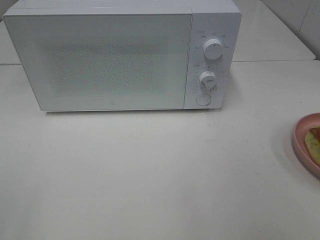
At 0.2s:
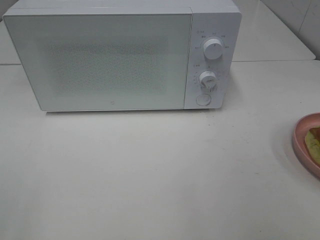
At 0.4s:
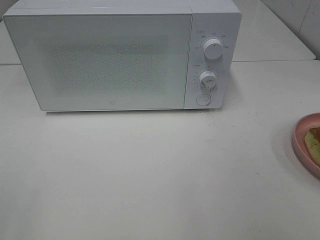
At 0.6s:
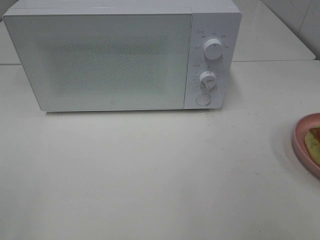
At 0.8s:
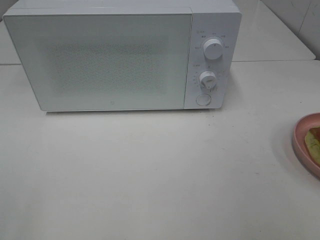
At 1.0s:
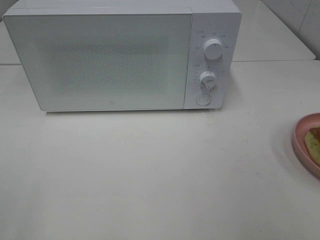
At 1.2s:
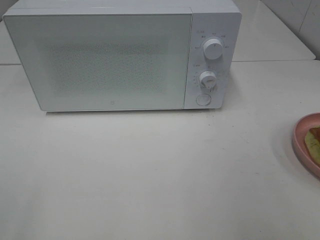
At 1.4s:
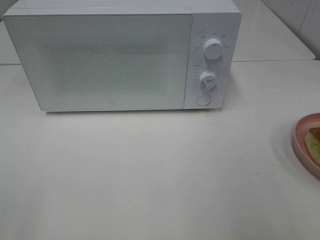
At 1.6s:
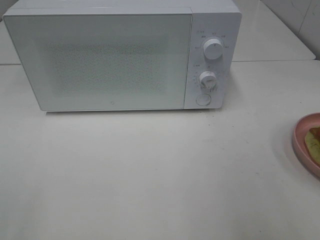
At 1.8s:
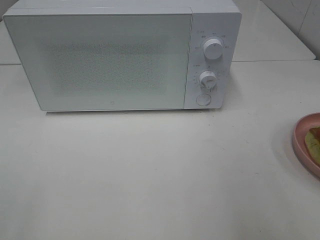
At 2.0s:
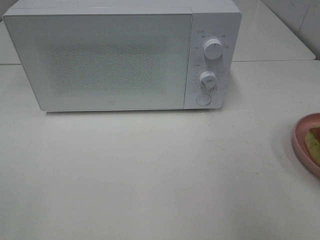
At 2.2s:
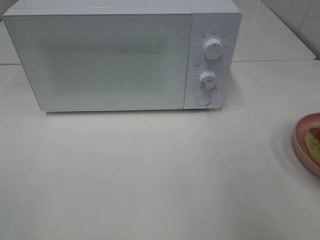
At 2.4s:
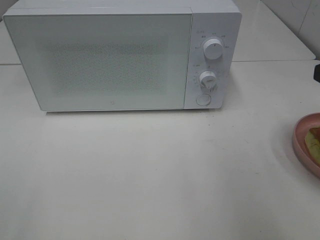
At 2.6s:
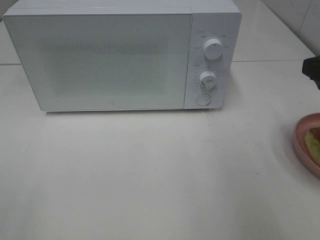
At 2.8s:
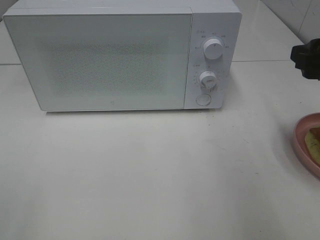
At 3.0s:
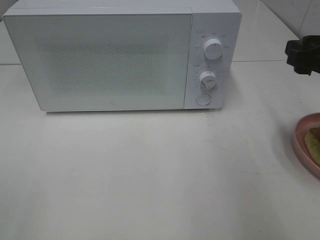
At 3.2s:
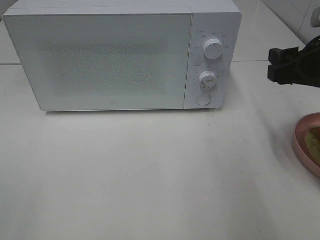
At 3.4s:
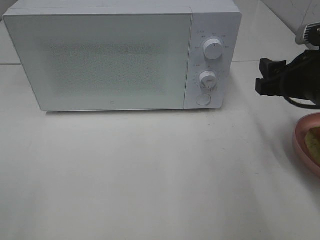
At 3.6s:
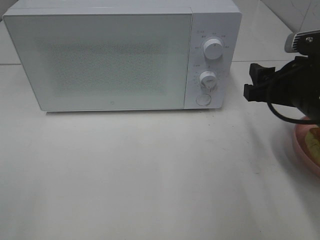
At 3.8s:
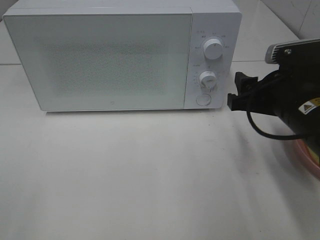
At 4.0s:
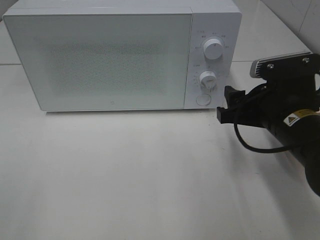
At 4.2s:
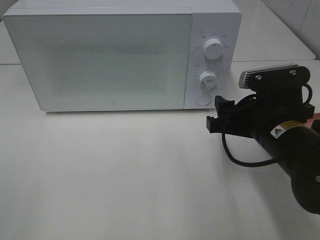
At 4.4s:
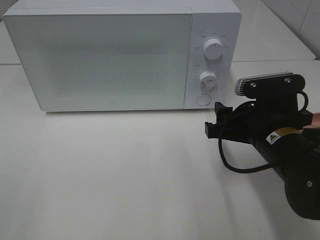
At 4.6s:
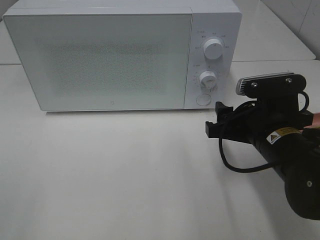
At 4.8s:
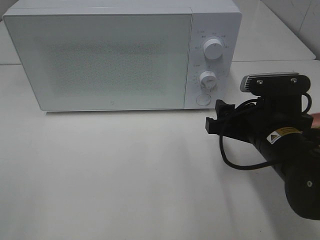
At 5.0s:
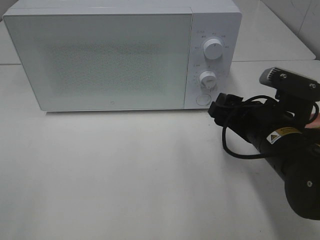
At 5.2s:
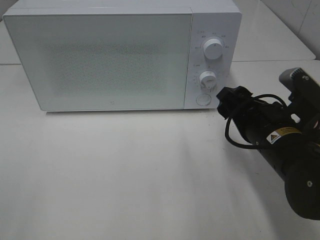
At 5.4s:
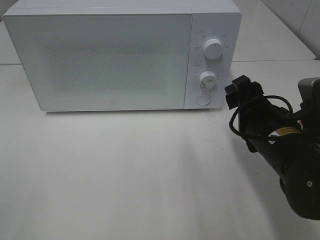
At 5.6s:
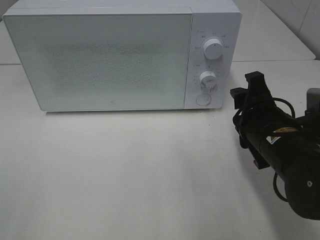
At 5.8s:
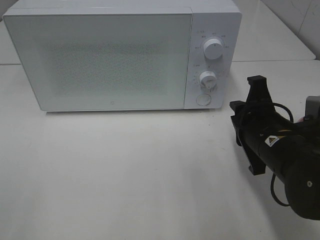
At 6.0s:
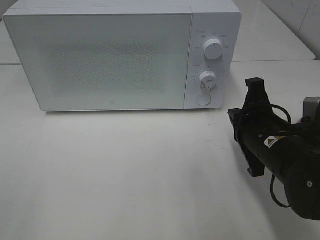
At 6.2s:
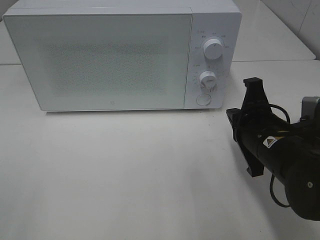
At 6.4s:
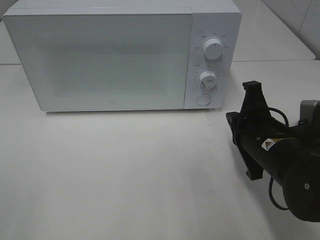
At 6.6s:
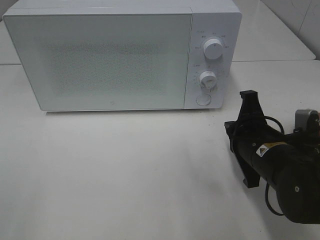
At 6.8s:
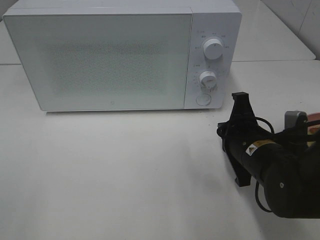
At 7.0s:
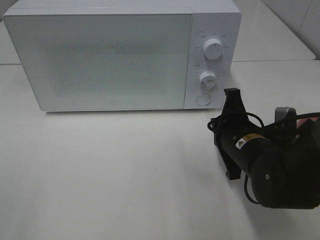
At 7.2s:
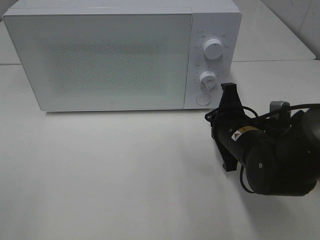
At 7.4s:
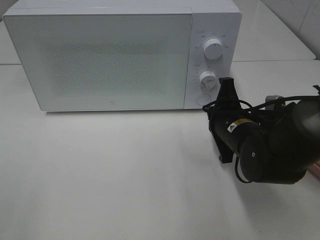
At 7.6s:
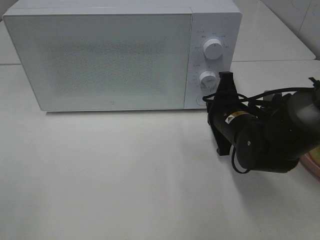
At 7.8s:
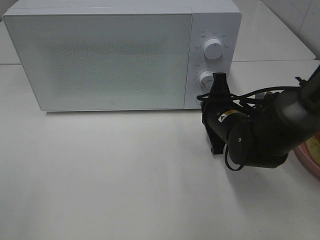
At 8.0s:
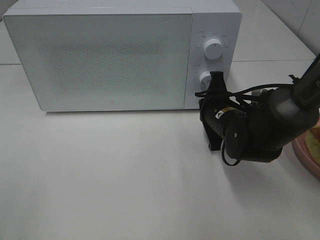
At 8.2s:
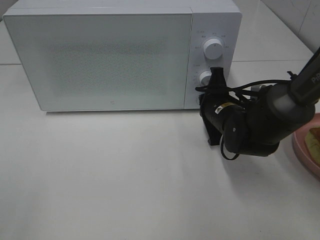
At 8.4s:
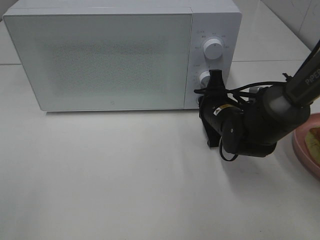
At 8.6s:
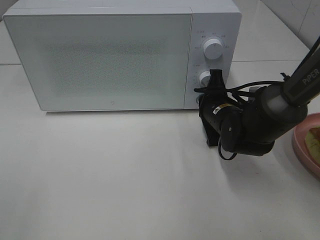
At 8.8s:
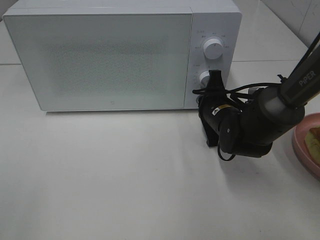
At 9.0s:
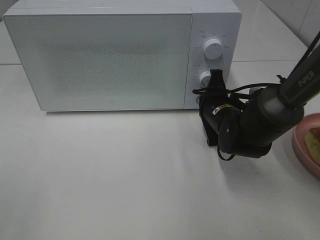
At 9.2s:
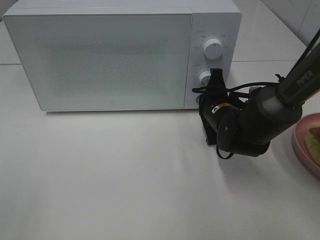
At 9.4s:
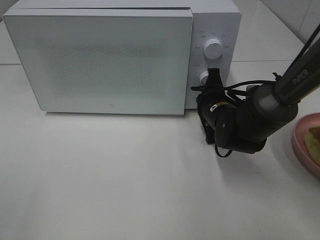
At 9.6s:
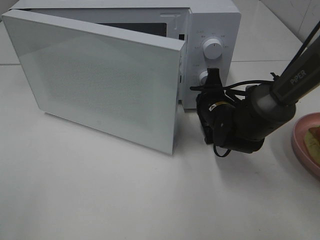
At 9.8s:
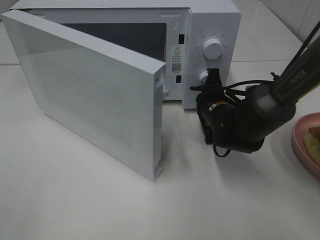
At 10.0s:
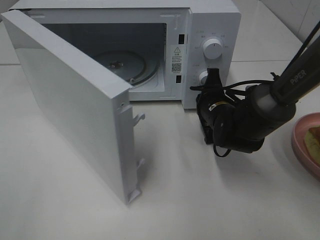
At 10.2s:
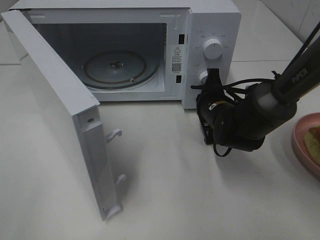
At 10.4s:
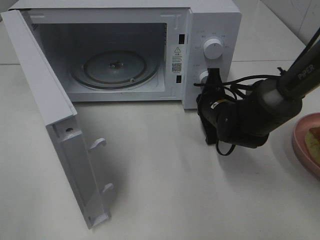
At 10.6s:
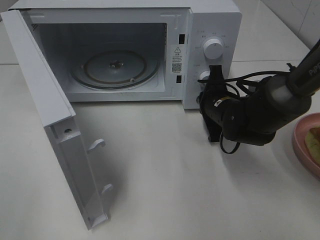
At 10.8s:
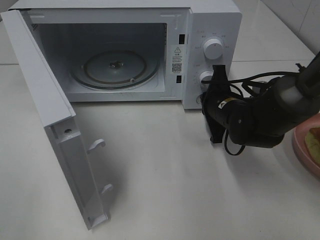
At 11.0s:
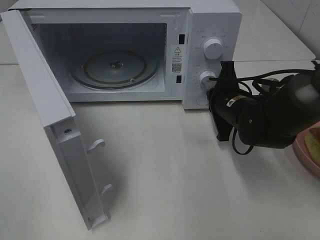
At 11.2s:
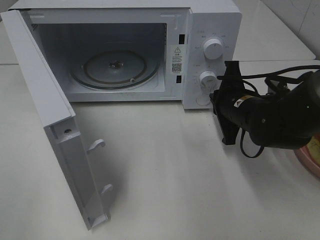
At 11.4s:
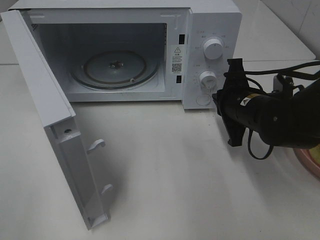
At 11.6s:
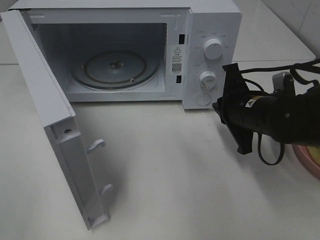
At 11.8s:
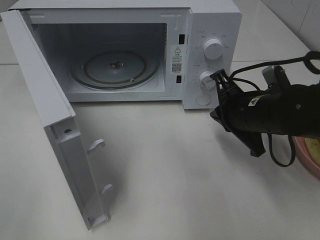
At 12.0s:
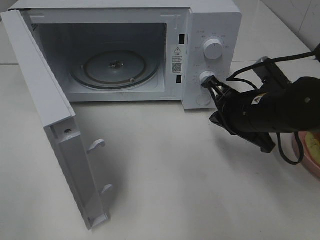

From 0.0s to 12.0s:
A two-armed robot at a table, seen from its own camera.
Task of the whole recording: Heat Sandwich.
Step, from 0.0s to 11.2s: Right hand: press the switch.
From 1.6s to 3.0s: The right gripper is displaced forward and downward by about 20 cm.
From 3.0s to 4.4s: The right gripper travels to the left and downward by about 15 cm.
From 4.4s to 6.0s: The right gripper closes.
From 6.0s to 7.6s: The right gripper heads forward, covering about 10 cm.
From 7.6s to 9.0s: The grippers make only small movements.
From 10.4s to 12.0s: The right gripper shifts about 10 cm backward and upward.

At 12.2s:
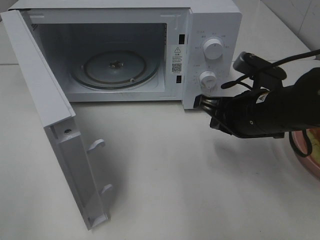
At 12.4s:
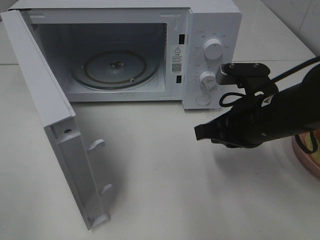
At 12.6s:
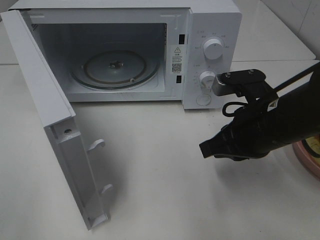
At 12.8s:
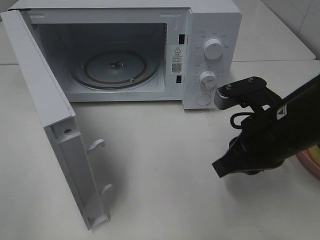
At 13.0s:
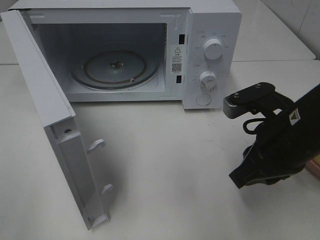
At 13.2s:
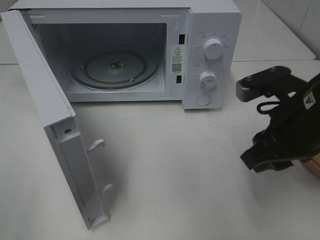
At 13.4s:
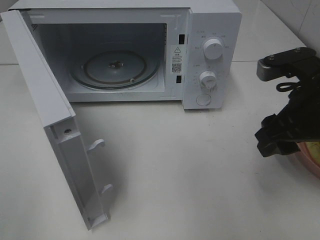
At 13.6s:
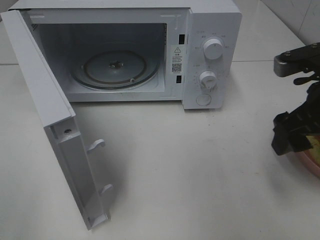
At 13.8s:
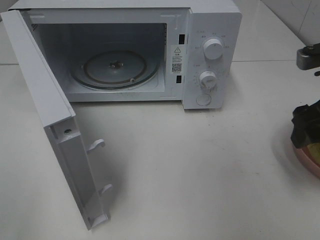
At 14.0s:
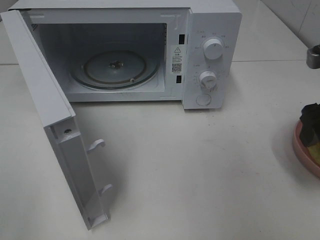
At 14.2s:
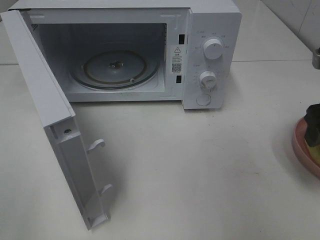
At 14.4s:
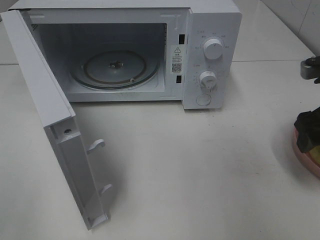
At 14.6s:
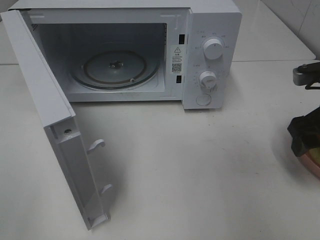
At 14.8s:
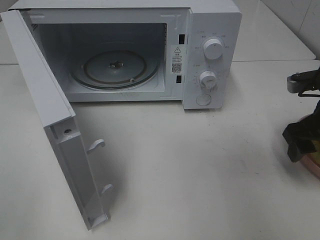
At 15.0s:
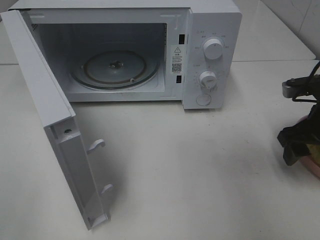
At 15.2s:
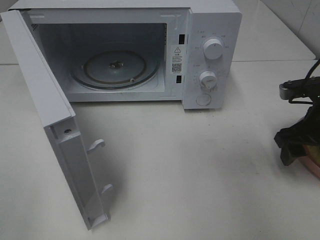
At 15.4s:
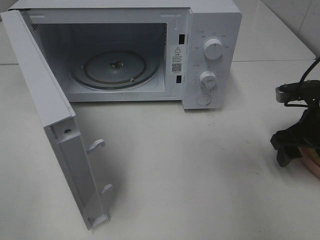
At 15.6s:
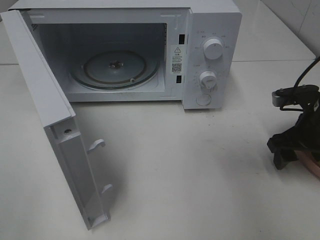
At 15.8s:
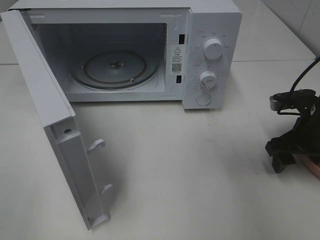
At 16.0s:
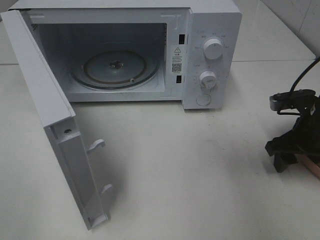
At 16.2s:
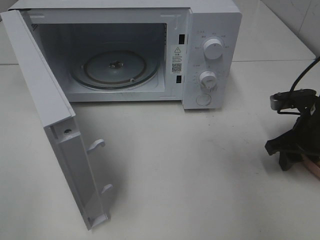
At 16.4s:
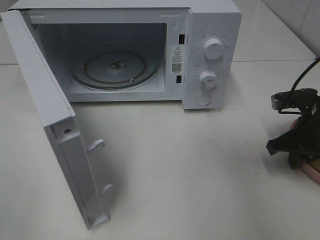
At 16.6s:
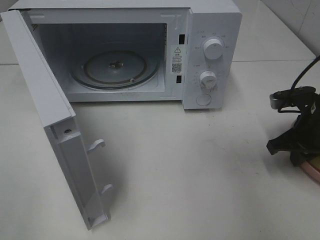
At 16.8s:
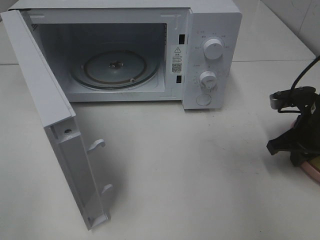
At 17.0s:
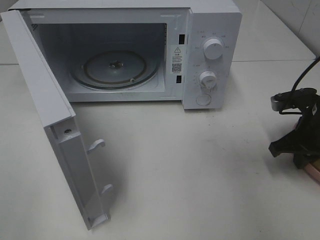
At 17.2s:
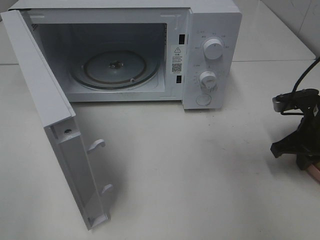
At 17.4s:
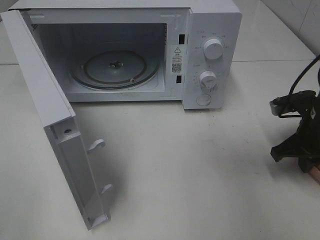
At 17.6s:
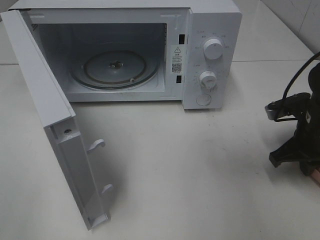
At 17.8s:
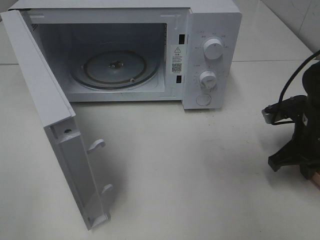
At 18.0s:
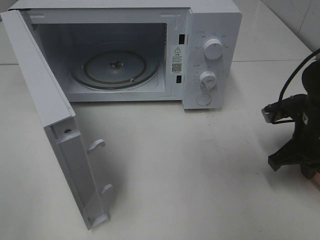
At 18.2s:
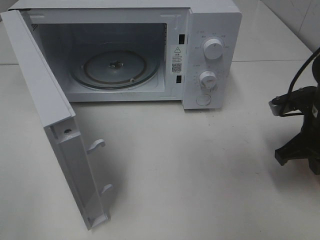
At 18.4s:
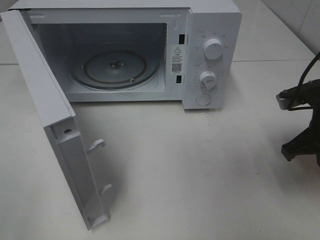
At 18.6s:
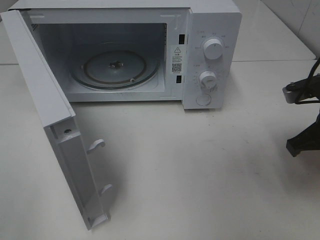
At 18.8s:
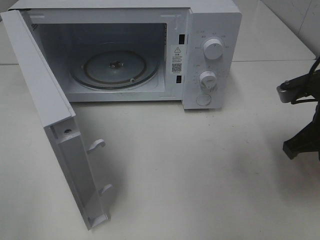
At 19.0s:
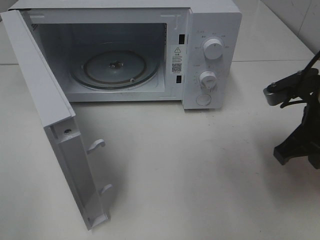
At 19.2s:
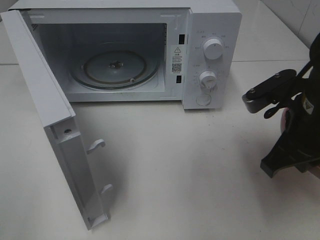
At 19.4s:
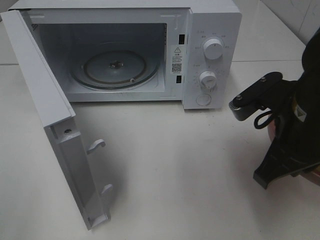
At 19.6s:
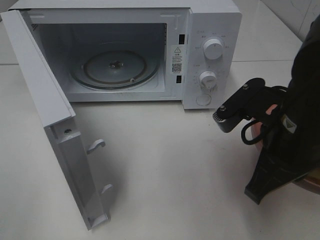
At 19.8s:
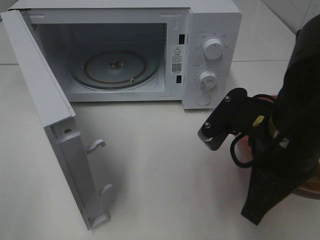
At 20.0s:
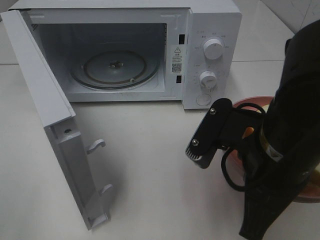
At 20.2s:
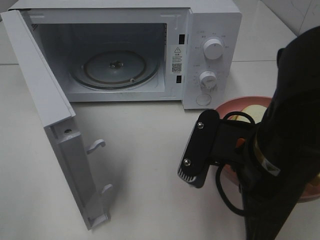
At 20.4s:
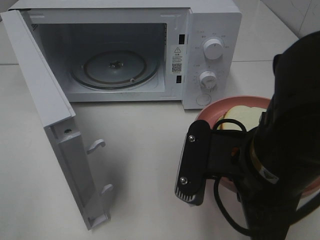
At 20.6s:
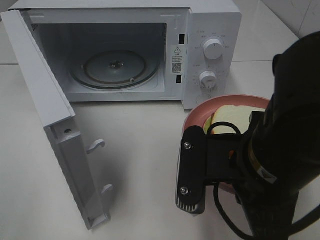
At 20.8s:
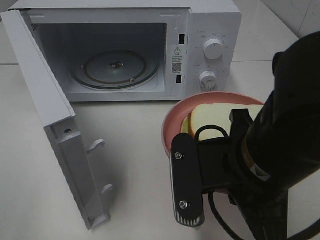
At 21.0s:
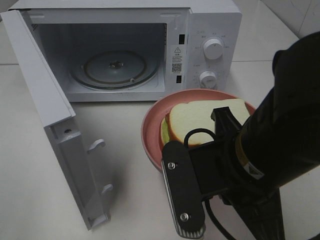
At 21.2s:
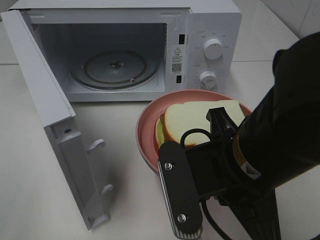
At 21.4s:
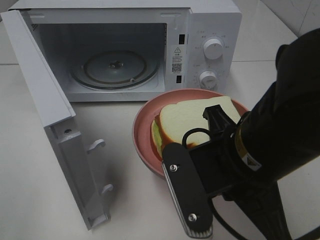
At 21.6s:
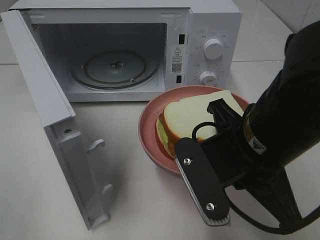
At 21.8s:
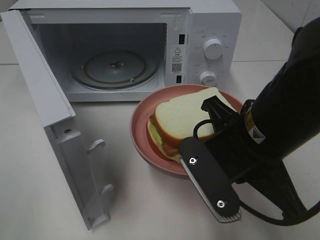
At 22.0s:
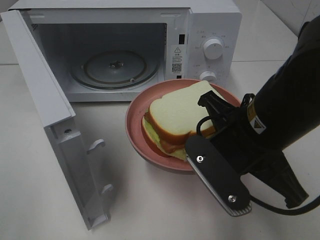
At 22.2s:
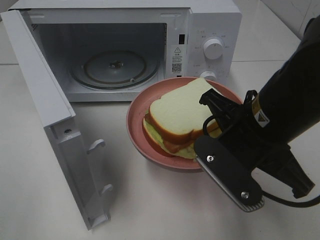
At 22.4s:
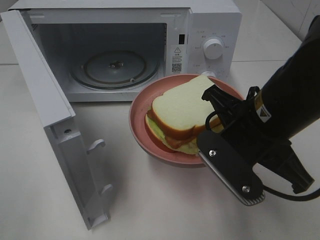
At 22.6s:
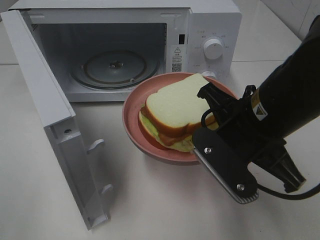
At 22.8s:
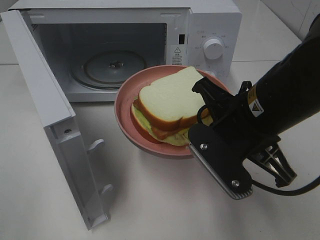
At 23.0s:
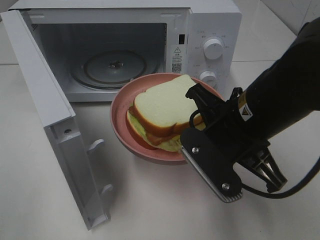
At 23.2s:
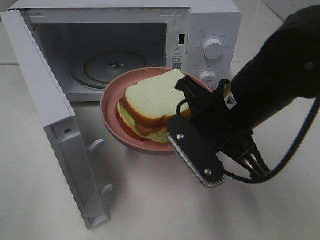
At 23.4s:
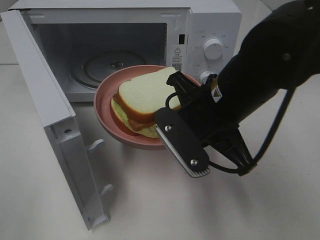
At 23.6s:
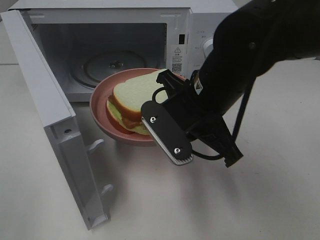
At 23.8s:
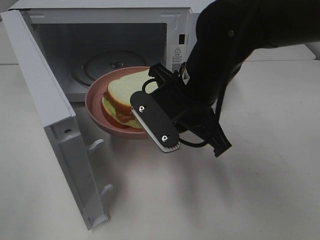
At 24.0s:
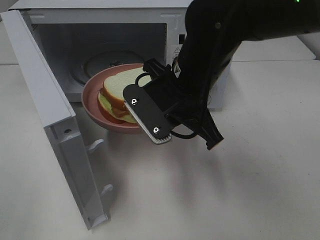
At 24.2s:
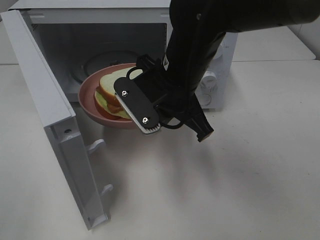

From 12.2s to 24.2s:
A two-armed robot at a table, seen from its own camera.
Task of the whole recording: Heat Sandwich.
Step, from 12.2s to 17.0s: Right hand: grab the plate with the sandwich.
From 12.2s to 13.8s: The right gripper is displaced to the right and upward by some 15 cm, and opens its fingers.
From 13.8s to 15.2s: The right gripper heads downward, covering some 10 cm.
From 15.2s to 16.6s: The right gripper closes.
From 16.6s to 18.2s: There are only small adjustments of the grippers.
From 18.2s to 19.8s: The right gripper is displaced to the left, backward and upward by roughly 20 cm.
From 19.8s to 21.2s: The right gripper shifts by roughly 5 cm.
From 21.2s to 22.6s: The right gripper goes about 5 cm forward.
From 22.6s to 24.2s: The right gripper shifts approximately 10 cm to the left and forward.
